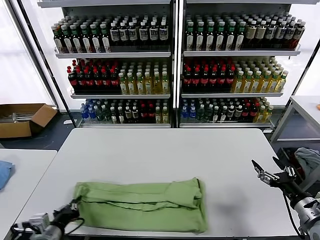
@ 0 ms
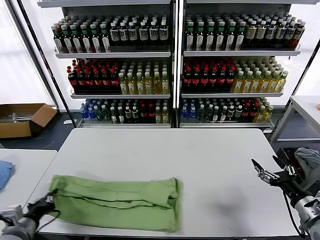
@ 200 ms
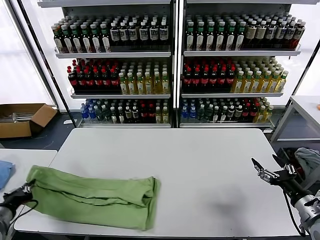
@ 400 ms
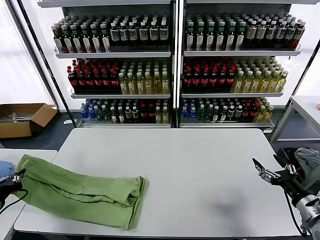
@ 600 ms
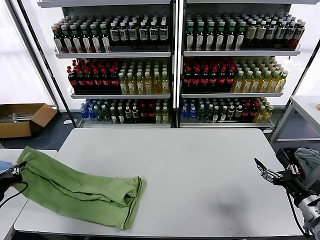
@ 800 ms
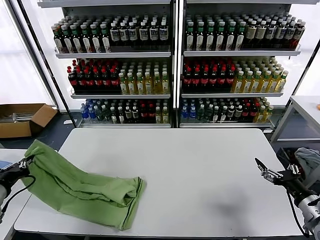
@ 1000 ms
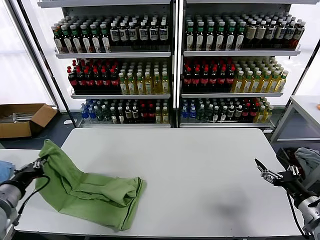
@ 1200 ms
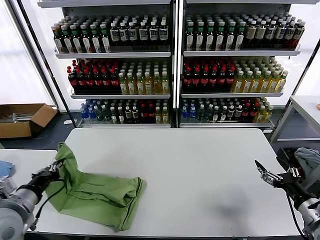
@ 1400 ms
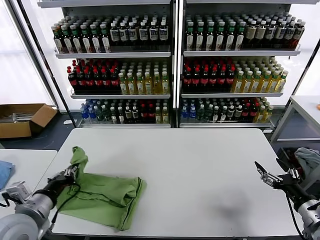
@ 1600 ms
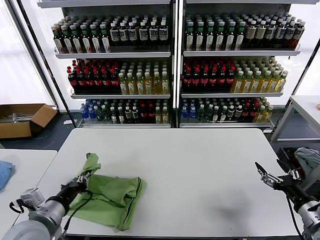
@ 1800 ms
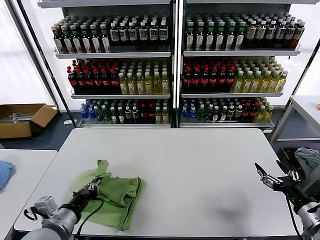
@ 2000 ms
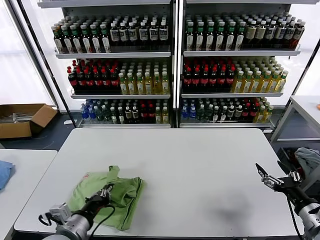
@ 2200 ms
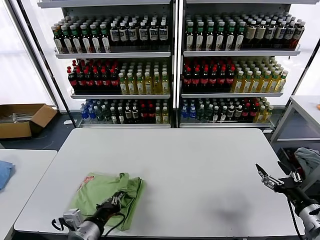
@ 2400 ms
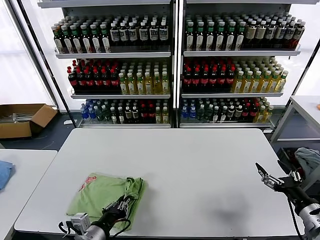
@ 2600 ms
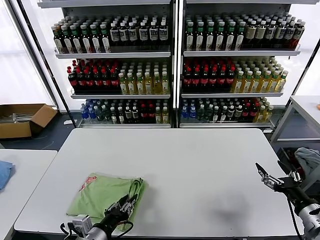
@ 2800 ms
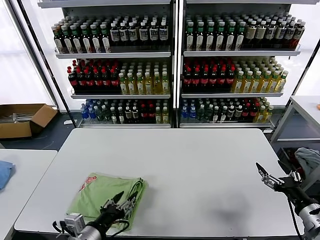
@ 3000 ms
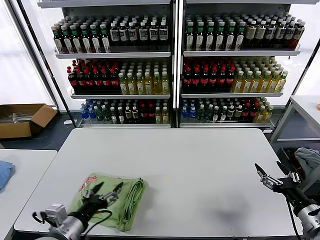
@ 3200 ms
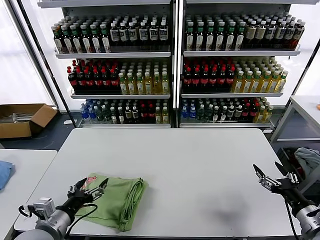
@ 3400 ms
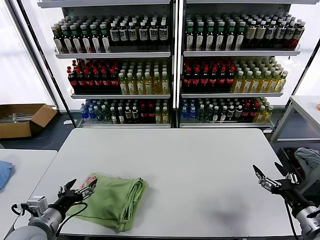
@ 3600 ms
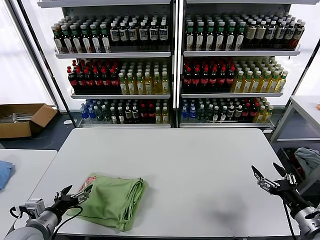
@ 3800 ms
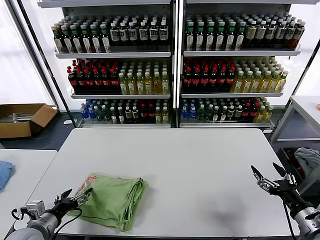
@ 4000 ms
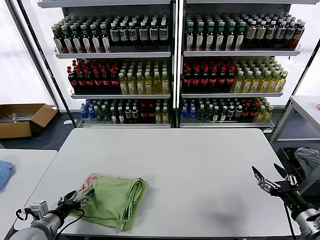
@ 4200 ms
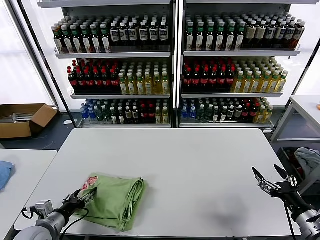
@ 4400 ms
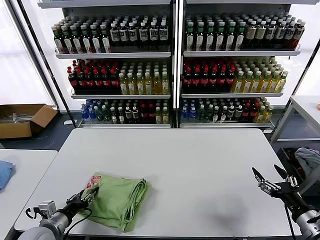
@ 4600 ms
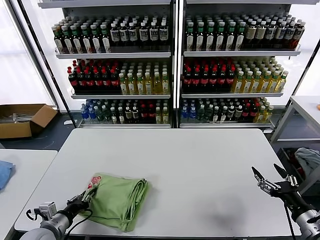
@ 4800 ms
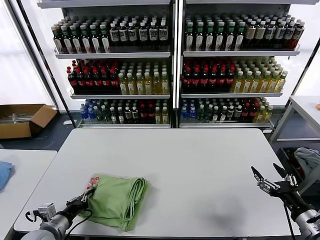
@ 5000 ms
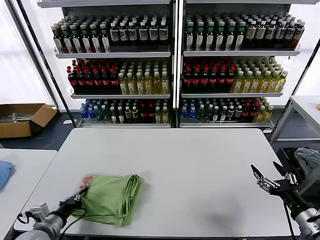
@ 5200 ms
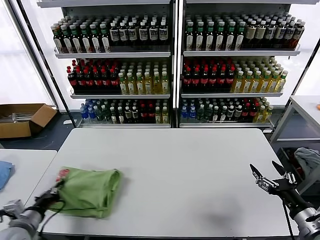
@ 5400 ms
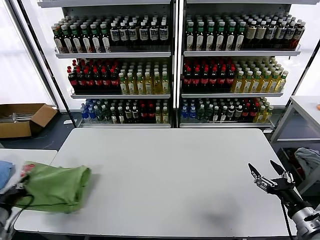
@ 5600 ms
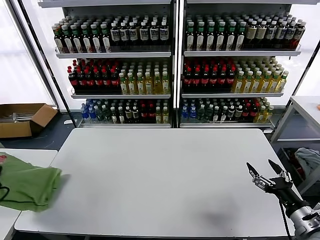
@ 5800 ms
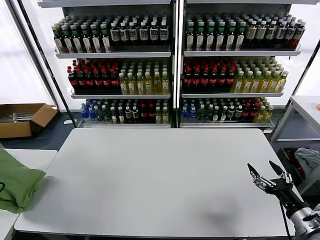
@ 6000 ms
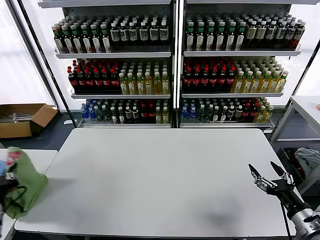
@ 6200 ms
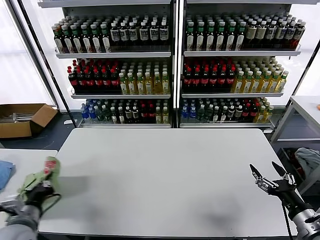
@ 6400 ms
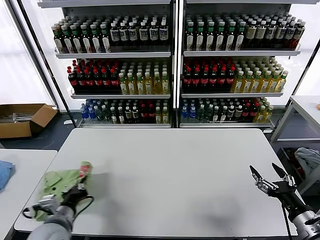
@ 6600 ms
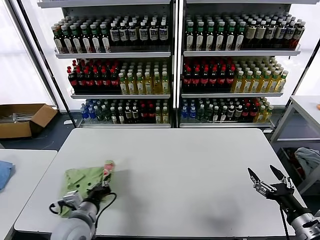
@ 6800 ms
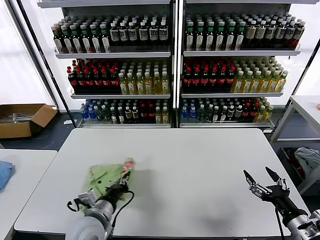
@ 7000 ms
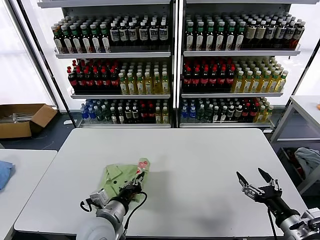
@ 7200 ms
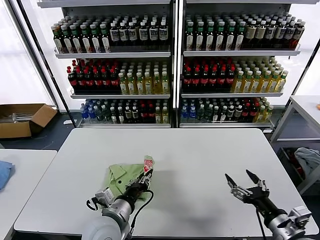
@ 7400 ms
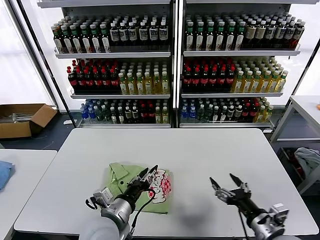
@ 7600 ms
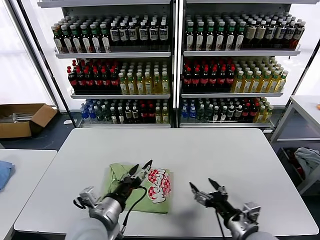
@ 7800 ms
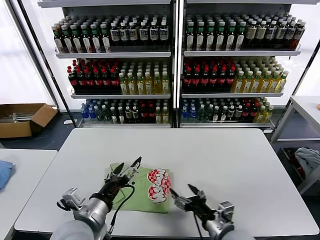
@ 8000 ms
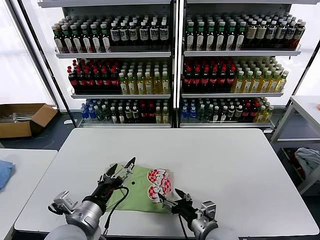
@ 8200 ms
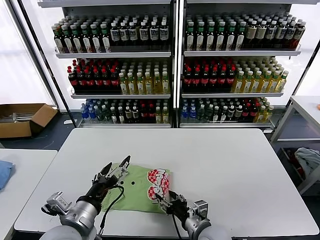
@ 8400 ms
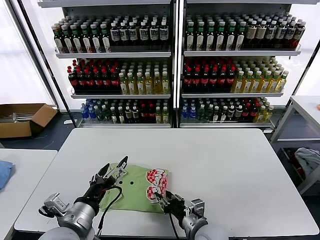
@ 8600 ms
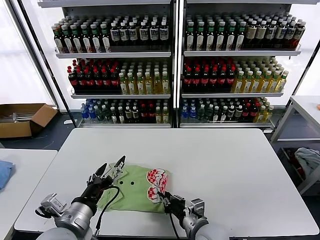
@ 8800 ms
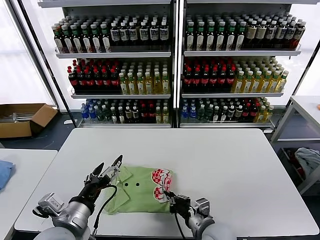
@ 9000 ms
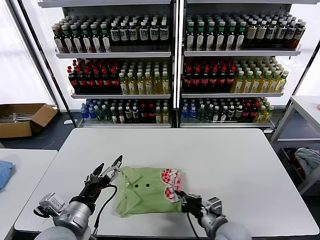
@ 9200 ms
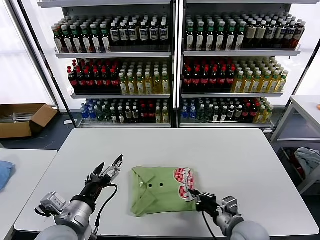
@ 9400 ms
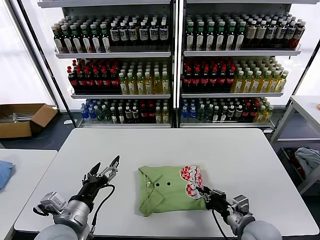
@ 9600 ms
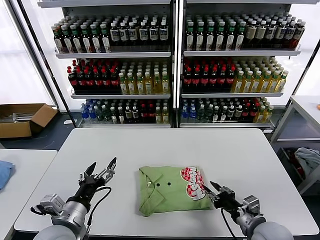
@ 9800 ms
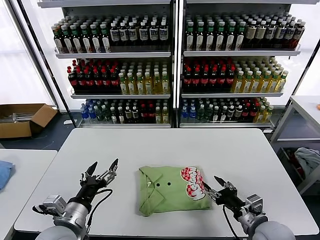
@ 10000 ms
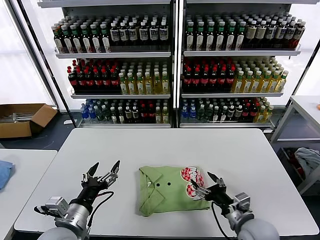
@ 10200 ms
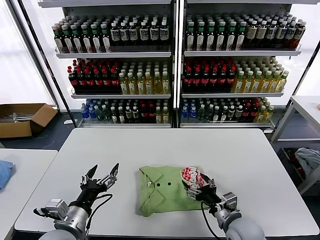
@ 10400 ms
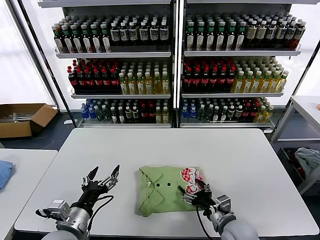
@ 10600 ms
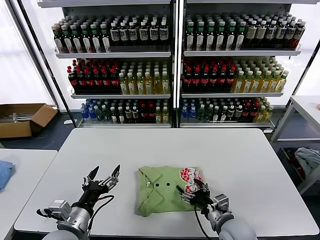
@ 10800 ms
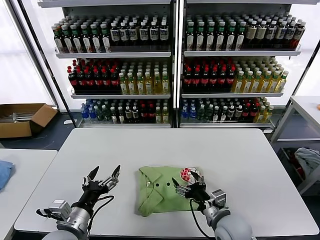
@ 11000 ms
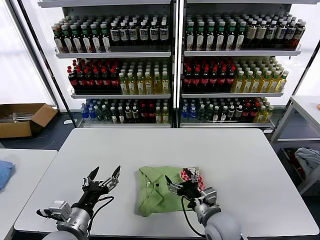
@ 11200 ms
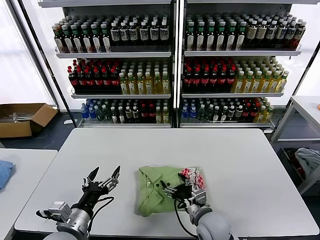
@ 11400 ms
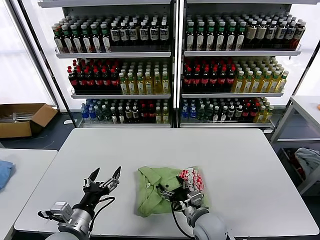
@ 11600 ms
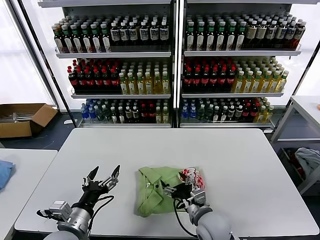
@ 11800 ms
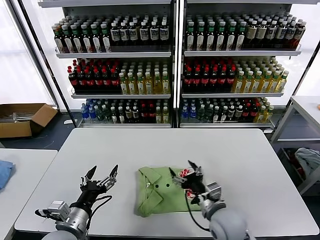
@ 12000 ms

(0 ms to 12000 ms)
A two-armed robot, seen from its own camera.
Task of the whole recording: fold and organize the clothes.
Step, 0 ms - 3000 ms: use the left gripper to drag the left edge of the fabric to the left and folds it over the right edge.
Step, 3200 ms - 7600 ms: Flip the folded clothes over with left gripper.
Step, 7800 ms - 11800 ms: Drag the clothes to the center of the table.
0 ms - 1600 ms: The left gripper travels upward by some 10 cm, and travels to the left and back again, some 15 cm each way.
1600 ms - 3000 ms: The left gripper shifts roughly 15 cm to the right, downward and backward, and opens up.
3000 ms - 4400 ms: The left gripper is displaced to the left, forward and downward by some 15 cm.
4400 ms - 6000 ms: The left gripper travels upward and to the left by about 20 cm, and closes.
6000 ms - 7600 ms: The right gripper shifts approximately 10 cm to the left. The left gripper travels to the right by some 35 cm, and opens its fingers.
7600 ms - 9000 ms: The left gripper goes roughly 10 cm to the left and upward, and opens, while the right gripper heads to the left and downward, covering some 15 cm, and closes its fingers.
9000 ms - 10400 ms: The left gripper is displaced downward by roughly 5 cm, while the right gripper goes approximately 10 cm to the right, and opens up.
10400 ms - 12000 ms: The right gripper goes about 5 cm to the left.

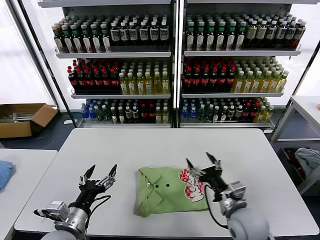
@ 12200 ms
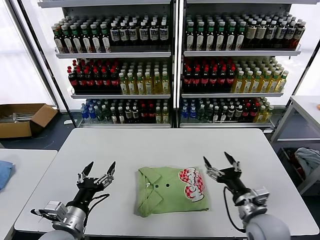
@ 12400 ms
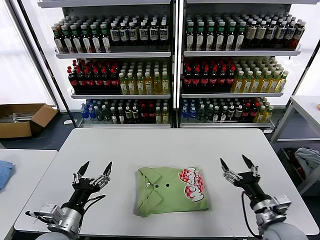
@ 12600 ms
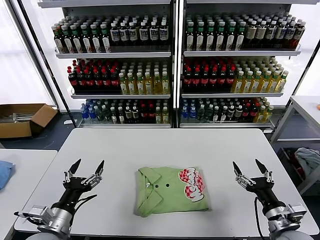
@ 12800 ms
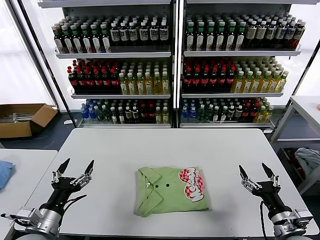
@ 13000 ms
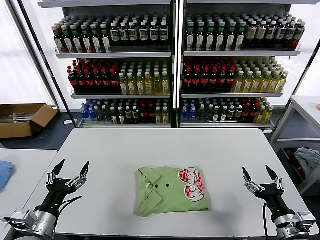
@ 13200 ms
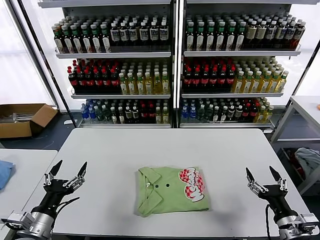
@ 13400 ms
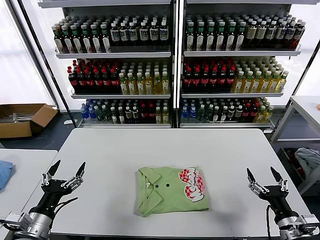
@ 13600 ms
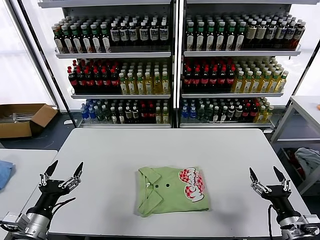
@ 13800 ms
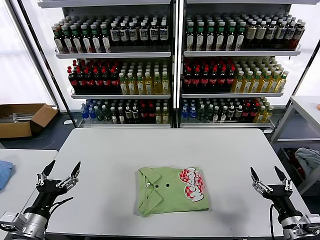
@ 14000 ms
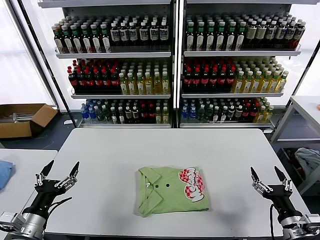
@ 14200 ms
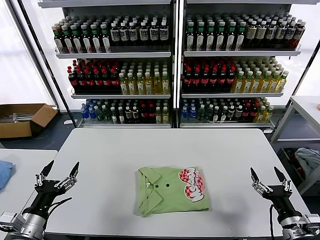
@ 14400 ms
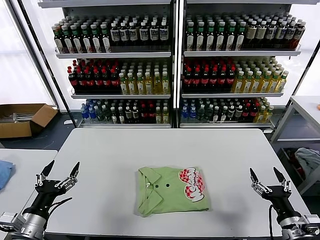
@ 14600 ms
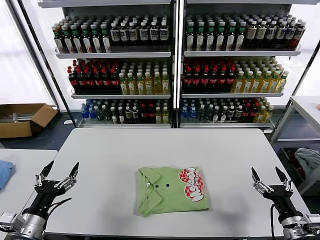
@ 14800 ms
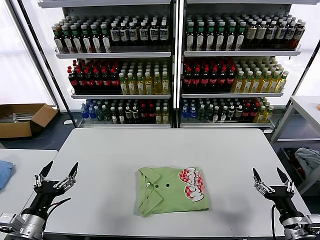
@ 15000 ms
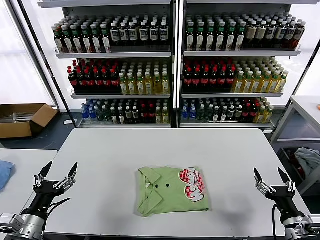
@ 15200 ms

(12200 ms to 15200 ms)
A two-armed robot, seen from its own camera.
Task of the whole recording: fold and organize the clothes.
12200 ms - 13800 ms: The right gripper is displaced to the right and backward by about 20 cm; the left gripper is displaced to the left by some 10 cm.
13800 ms - 15200 ms: The grippers stay close to where they were, moving slightly.
